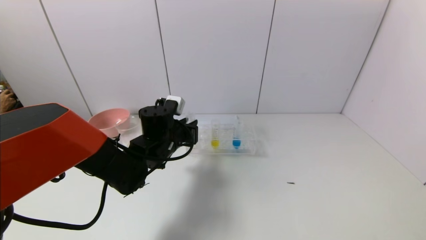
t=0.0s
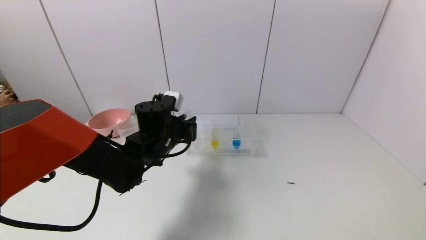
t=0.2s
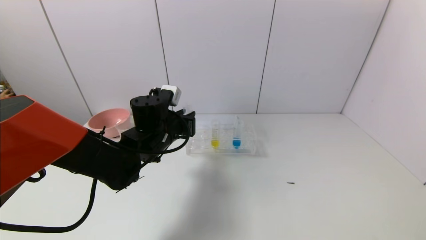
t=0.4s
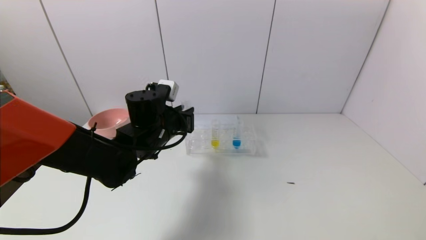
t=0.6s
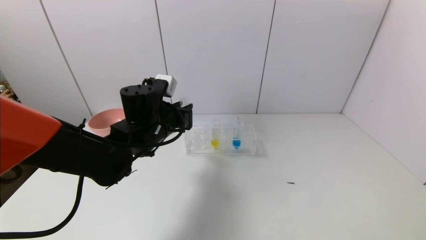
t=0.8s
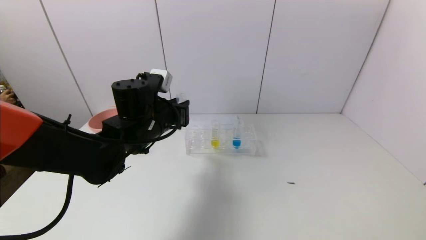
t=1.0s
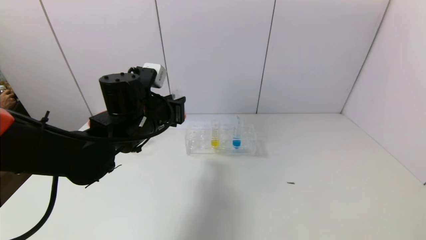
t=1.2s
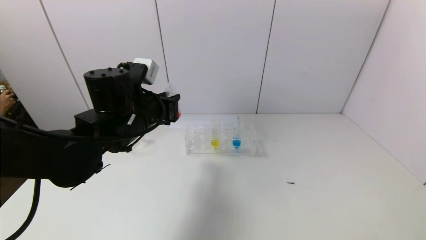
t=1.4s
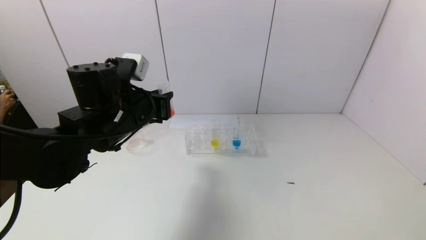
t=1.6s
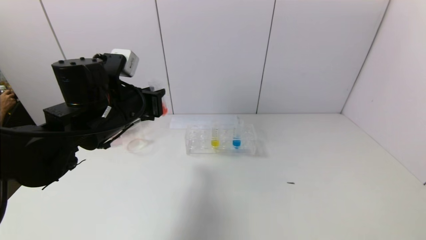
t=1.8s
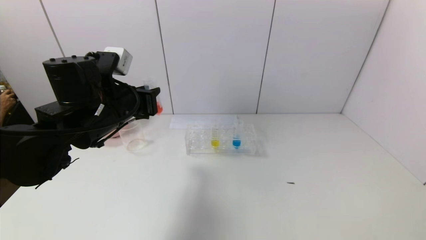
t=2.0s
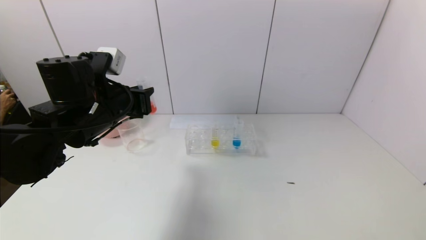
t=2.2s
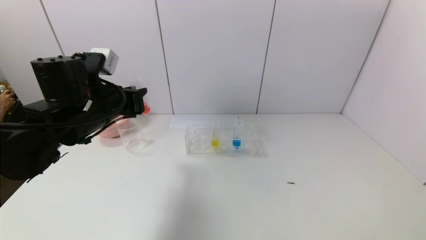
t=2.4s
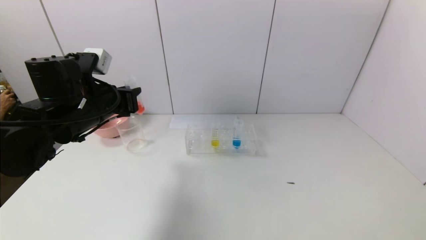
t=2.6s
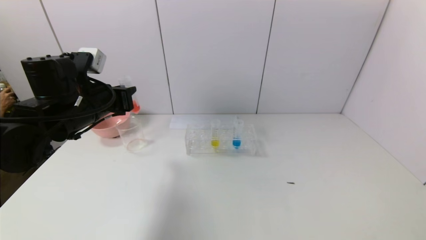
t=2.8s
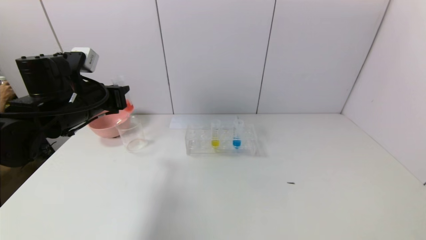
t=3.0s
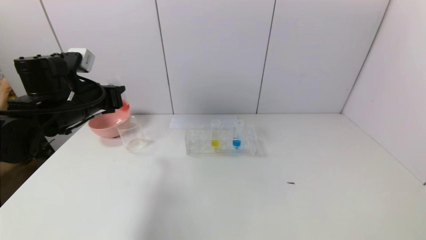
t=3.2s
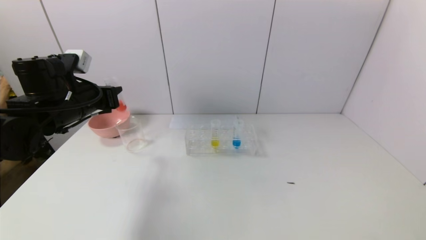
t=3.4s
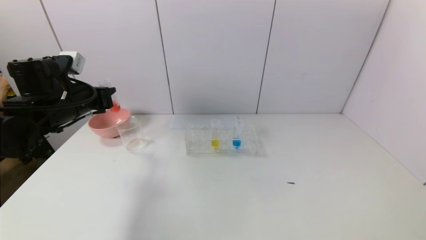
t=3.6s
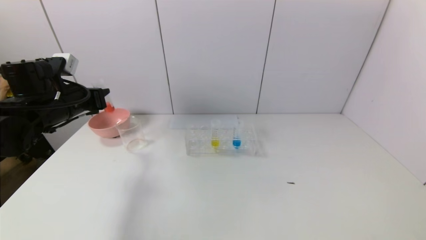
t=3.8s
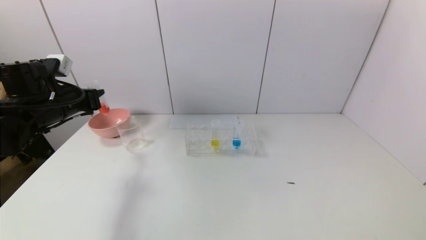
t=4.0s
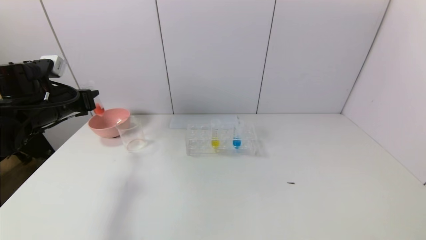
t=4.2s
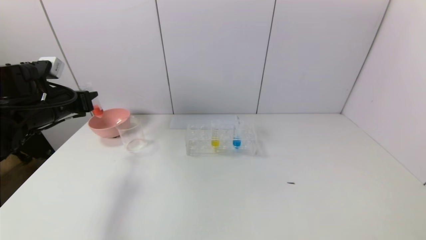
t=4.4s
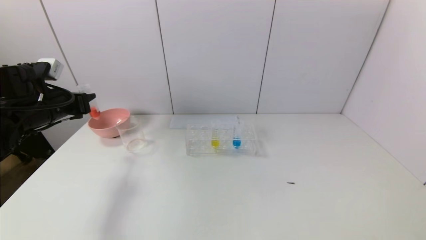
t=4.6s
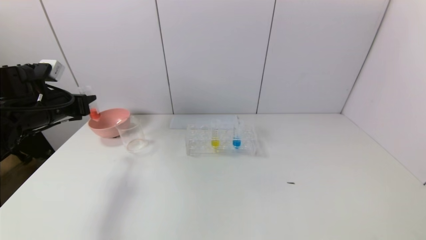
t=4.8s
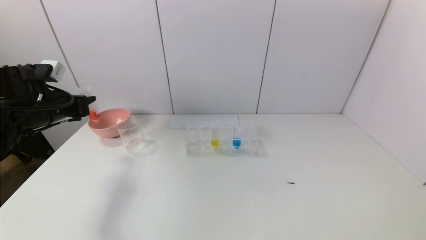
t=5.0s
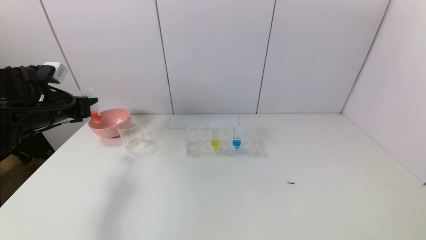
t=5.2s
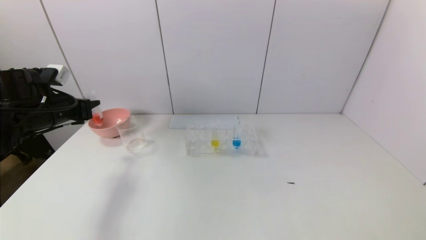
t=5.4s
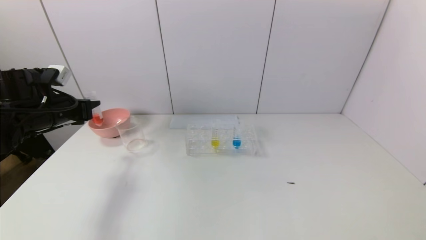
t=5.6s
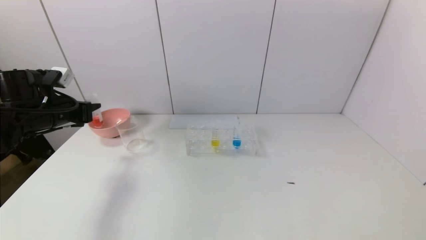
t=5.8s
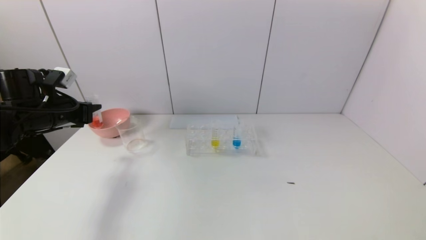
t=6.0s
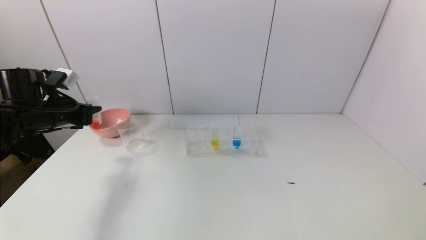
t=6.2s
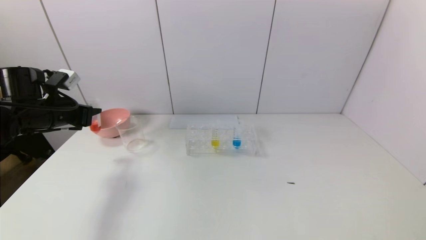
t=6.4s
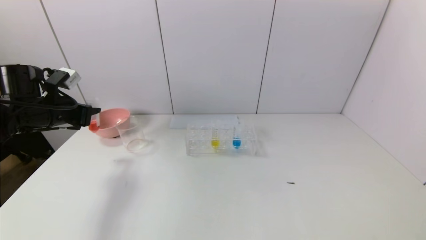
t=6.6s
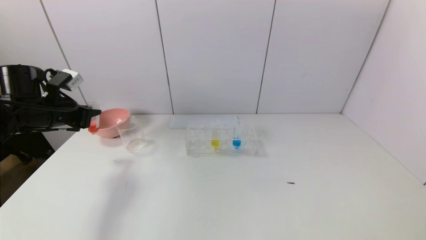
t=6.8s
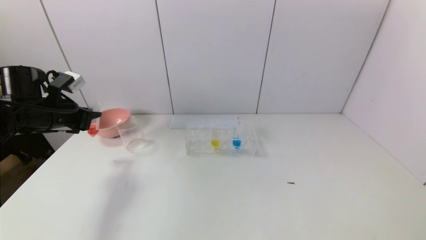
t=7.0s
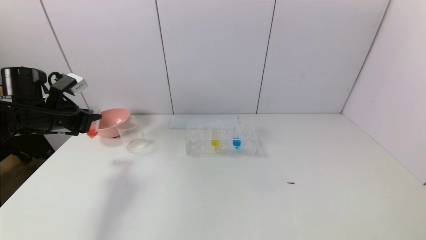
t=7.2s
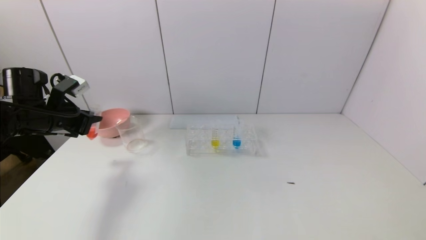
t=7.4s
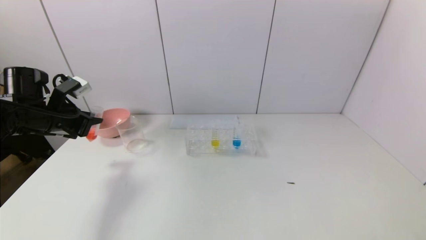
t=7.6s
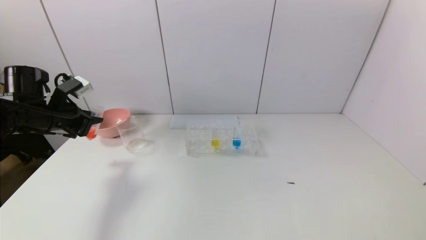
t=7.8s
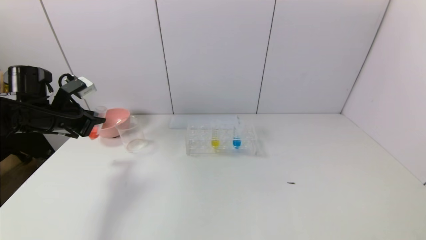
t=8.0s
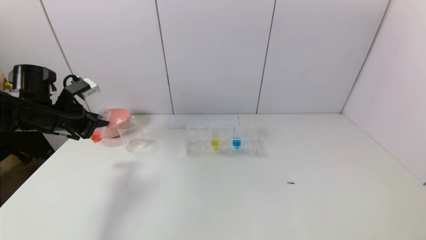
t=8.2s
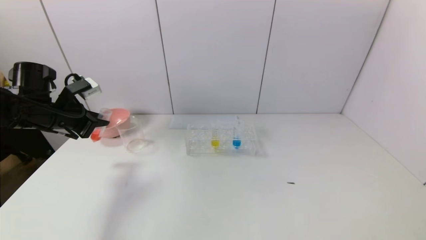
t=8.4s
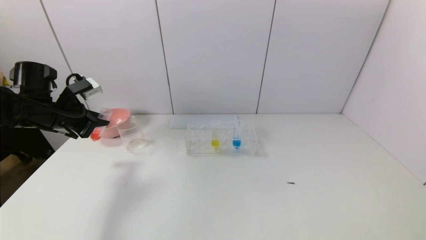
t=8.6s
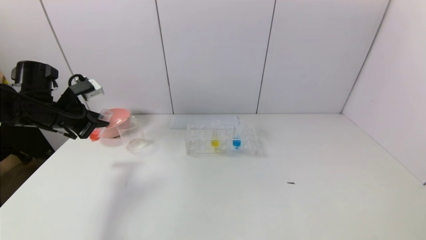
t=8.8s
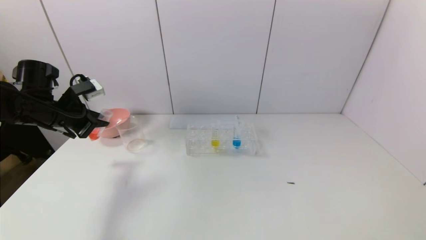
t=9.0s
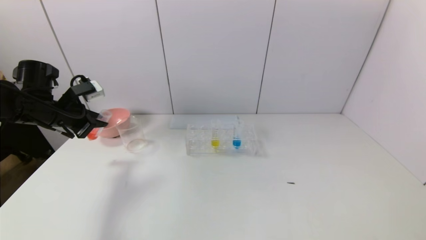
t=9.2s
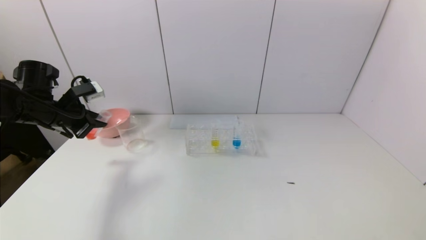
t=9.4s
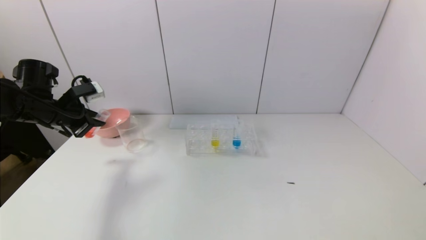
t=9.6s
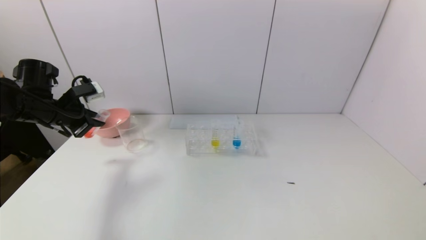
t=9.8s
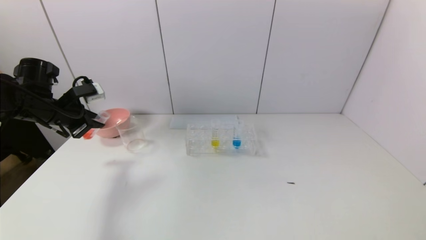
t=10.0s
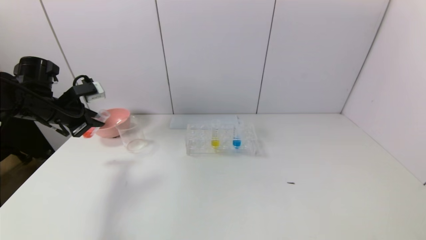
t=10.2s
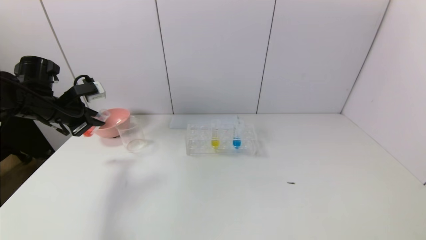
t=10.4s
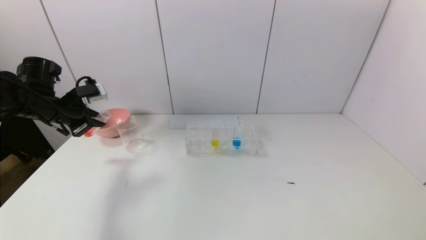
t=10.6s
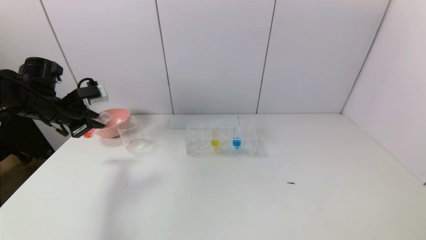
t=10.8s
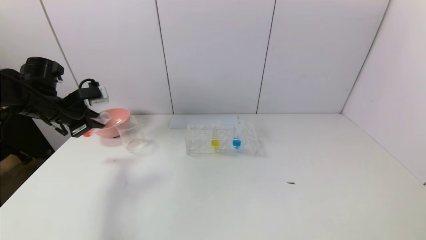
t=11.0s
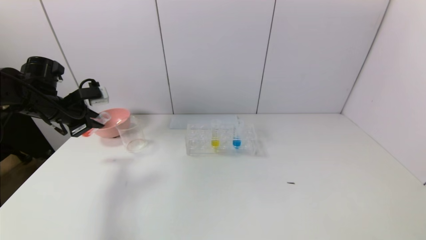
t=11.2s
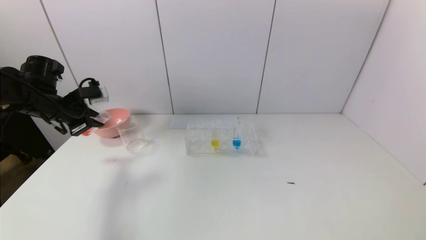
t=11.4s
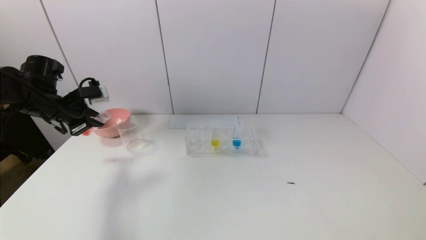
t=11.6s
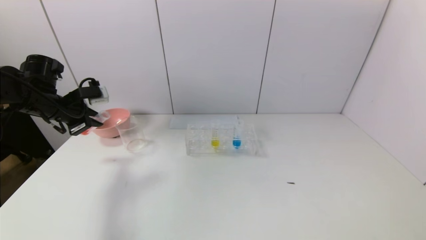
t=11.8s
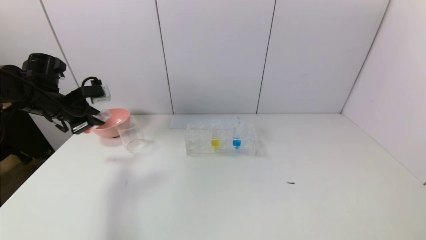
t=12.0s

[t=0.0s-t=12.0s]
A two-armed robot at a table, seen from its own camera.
Task of the whole recording: pick up the test tube with yellow pigment and the test tube with red pigment by grippers and pour them into the beaker.
t=0.0s to t=1.6s: The left gripper shifts roughly 10 cm upward and backward.
t=1.6s to t=3.0s: The left gripper shifts about 10 cm to the left.
t=3.0s to t=4.4s: The left gripper is displaced to the left by some 10 cm.
t=4.4s to t=6.0s: The grippers stay close to where they were, moving slightly.
t=7.6s to t=9.0s: The grippers stay close to where they were, moving slightly.
t=9.0s to t=12.0s: The grippers stay close to where they were, moving slightly.

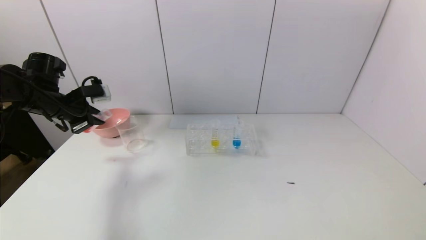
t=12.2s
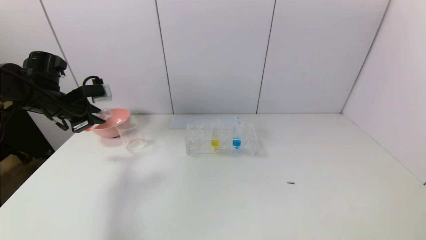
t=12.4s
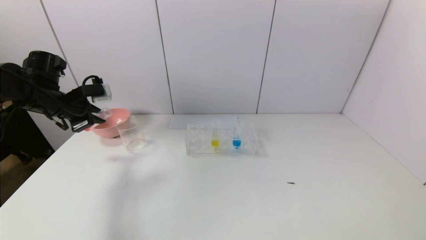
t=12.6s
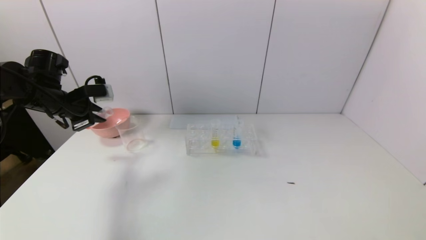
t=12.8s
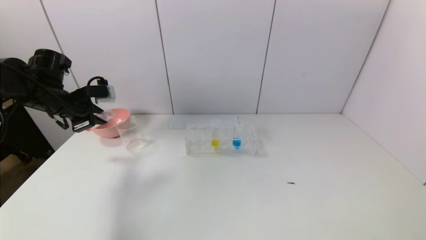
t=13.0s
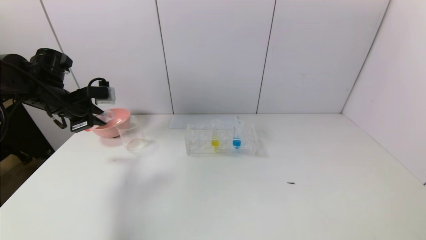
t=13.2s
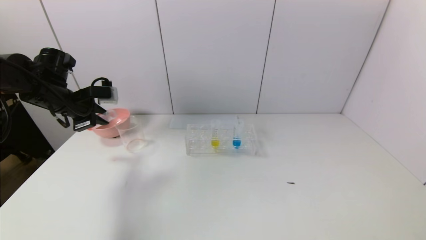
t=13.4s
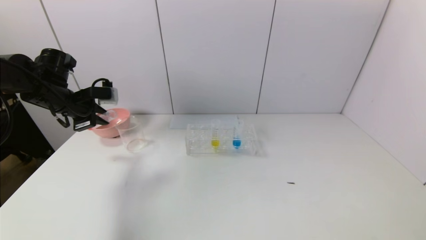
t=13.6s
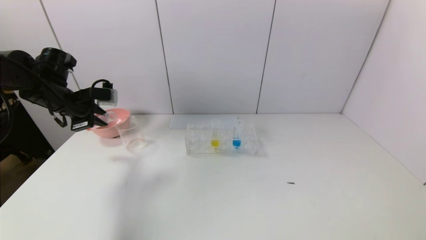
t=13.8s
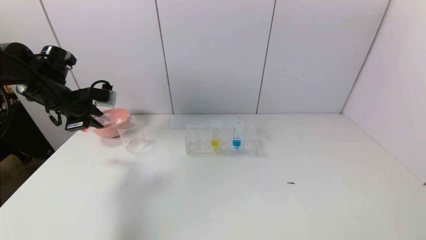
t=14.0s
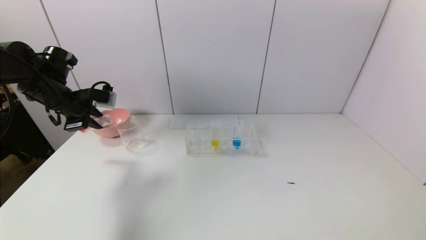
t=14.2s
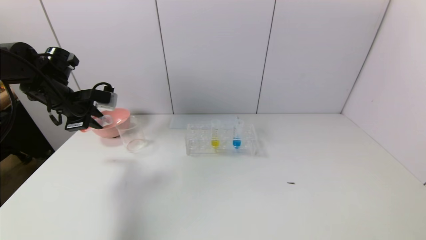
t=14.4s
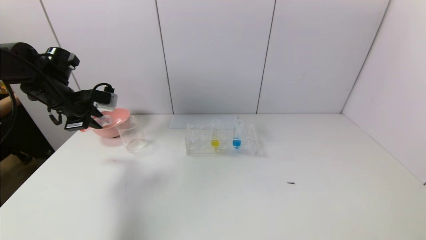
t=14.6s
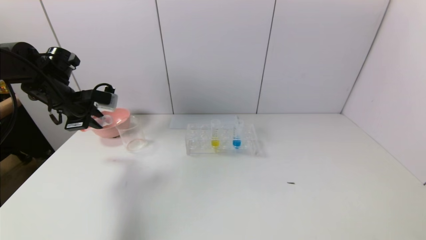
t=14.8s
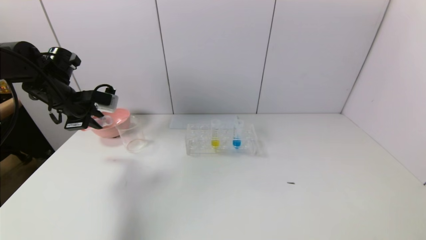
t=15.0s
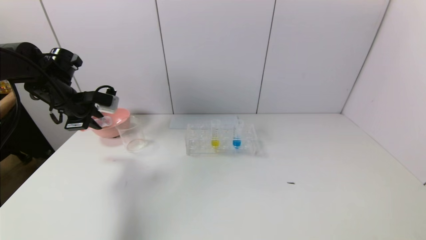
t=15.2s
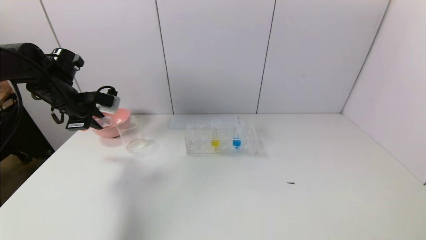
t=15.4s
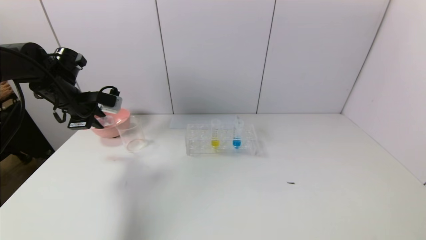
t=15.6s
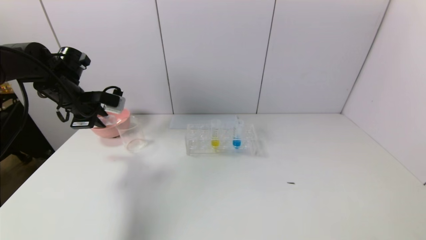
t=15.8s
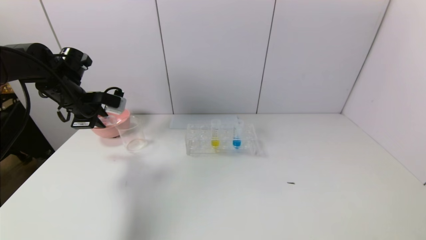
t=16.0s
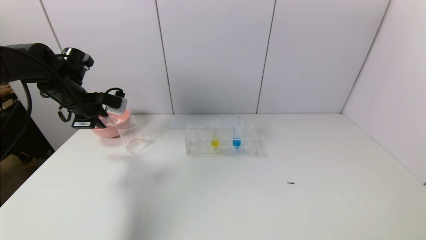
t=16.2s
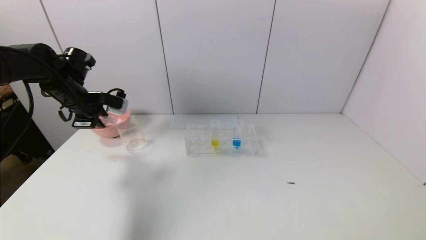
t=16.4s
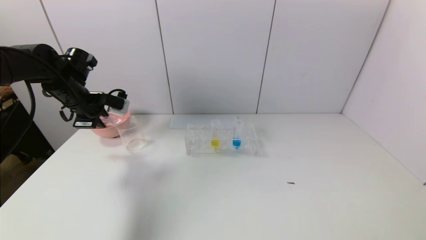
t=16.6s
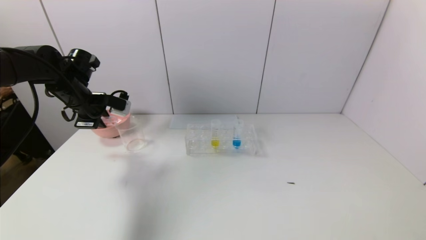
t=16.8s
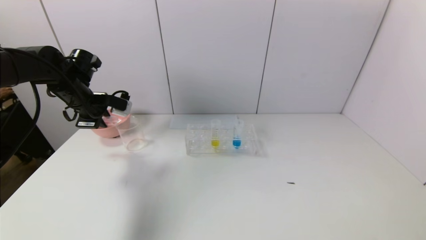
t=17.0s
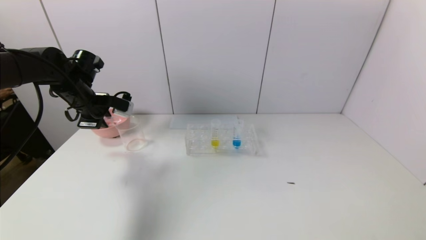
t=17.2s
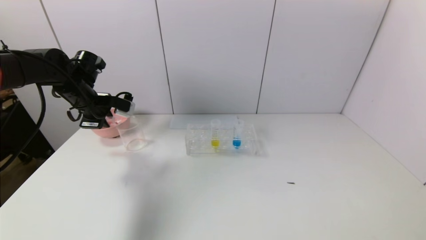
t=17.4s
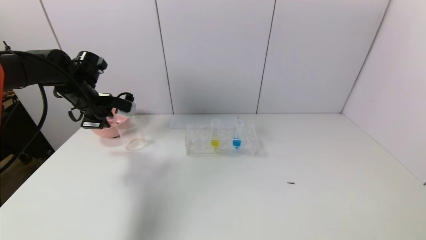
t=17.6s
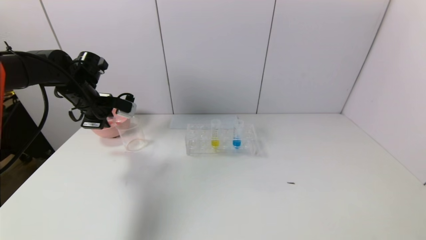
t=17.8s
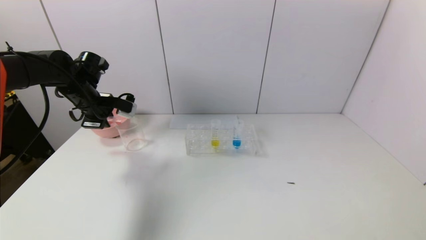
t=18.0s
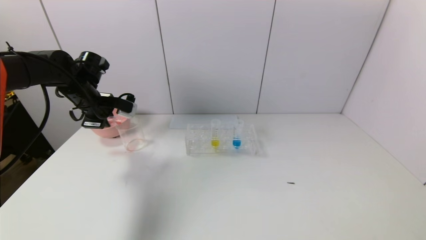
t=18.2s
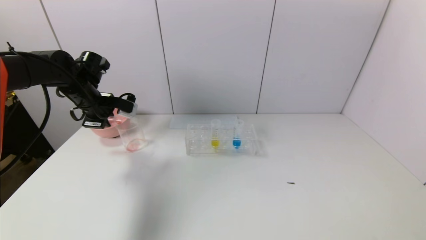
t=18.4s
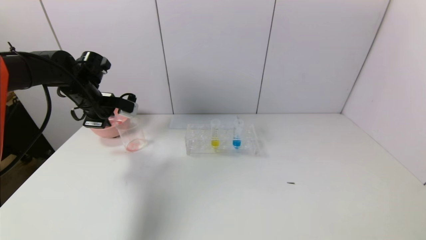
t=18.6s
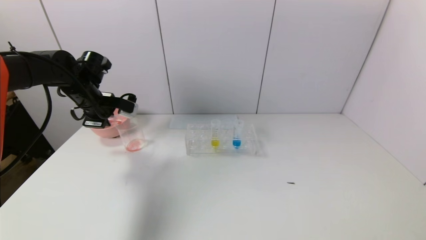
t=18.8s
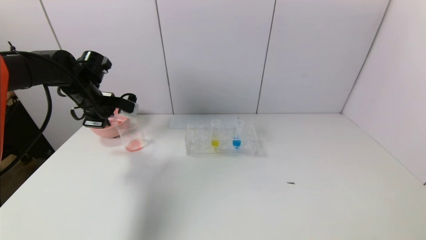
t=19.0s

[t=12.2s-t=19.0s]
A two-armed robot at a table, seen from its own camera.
Task of the whole recording: pick up the test tube with yellow pigment and the test tube with red pigment by grippers and pour them into the beaker.
t=12.2s to t=13.6s: The grippers make only small movements.
t=13.6s to t=16.2s: The grippers make only small movements.
t=16.2s to t=17.6s: The grippers move only a little.
t=17.6s to t=19.0s: Both grippers stay about where they are.
